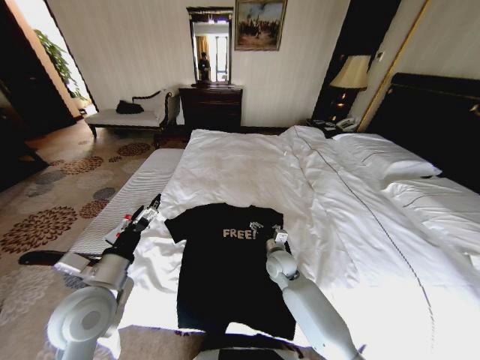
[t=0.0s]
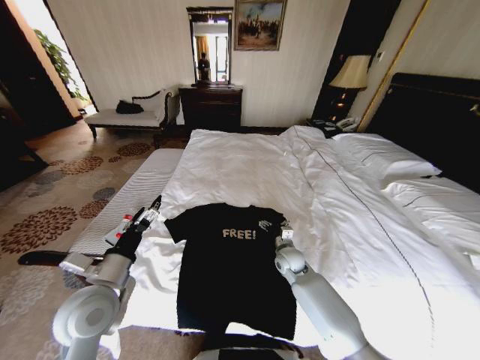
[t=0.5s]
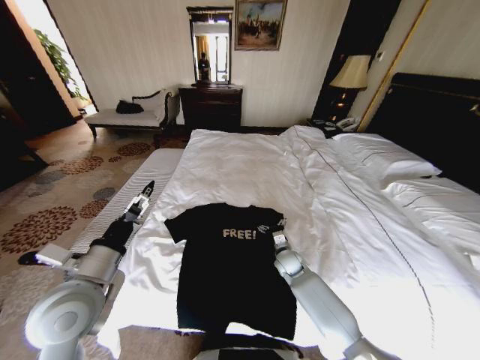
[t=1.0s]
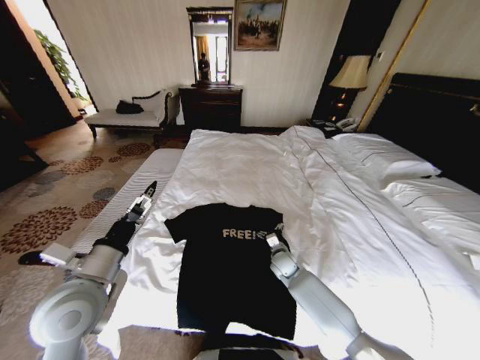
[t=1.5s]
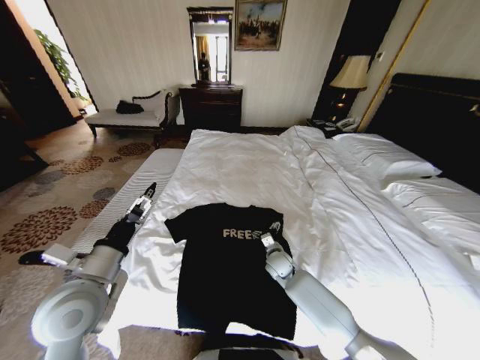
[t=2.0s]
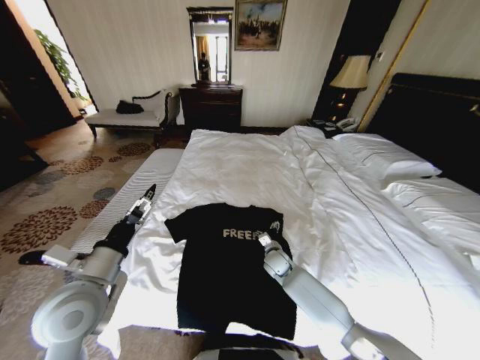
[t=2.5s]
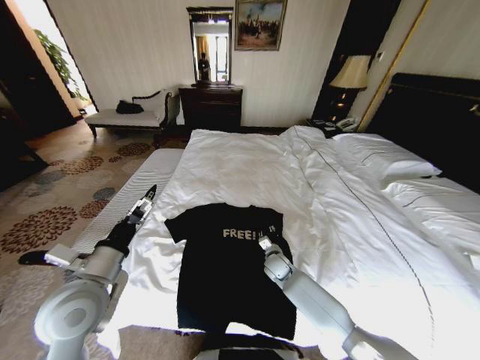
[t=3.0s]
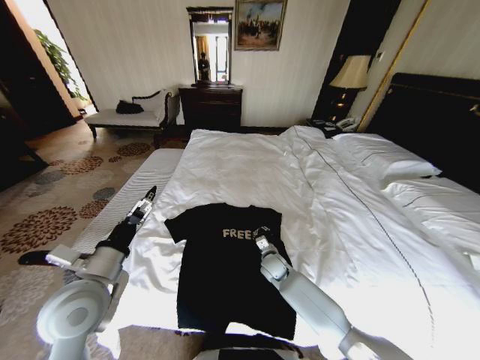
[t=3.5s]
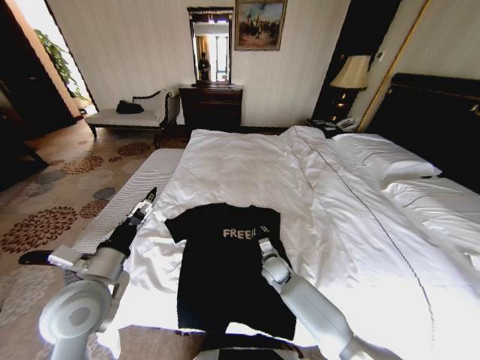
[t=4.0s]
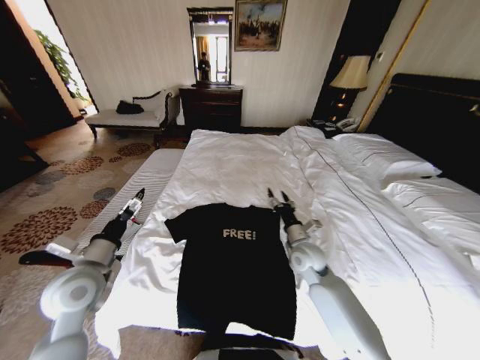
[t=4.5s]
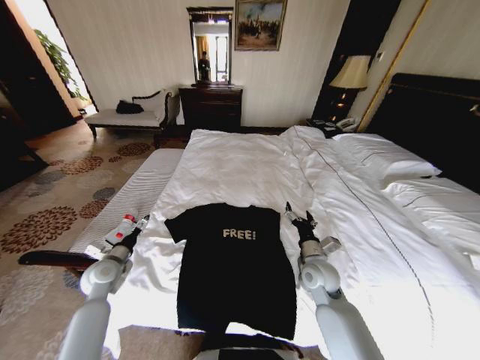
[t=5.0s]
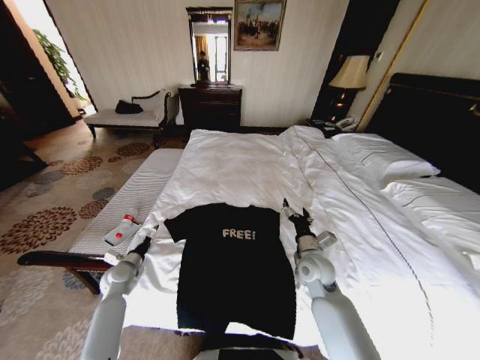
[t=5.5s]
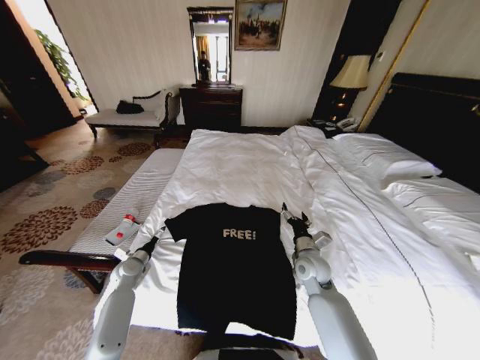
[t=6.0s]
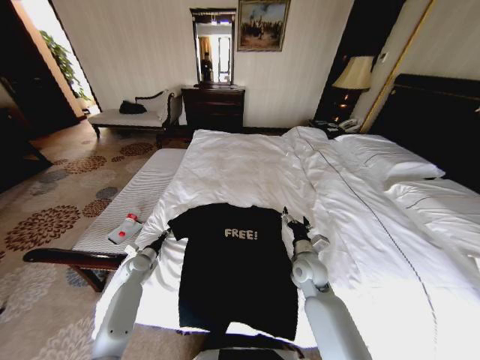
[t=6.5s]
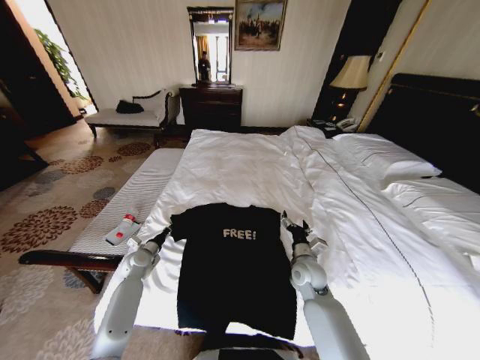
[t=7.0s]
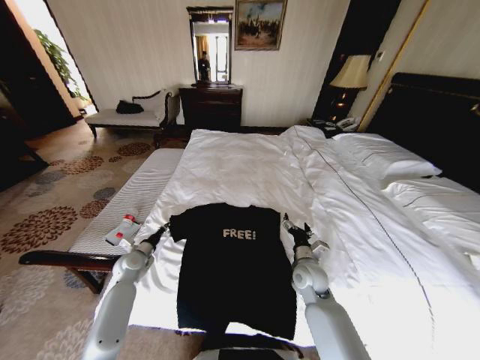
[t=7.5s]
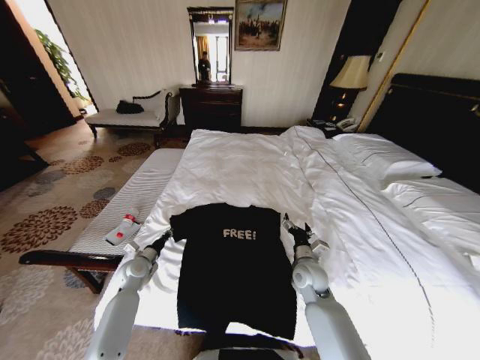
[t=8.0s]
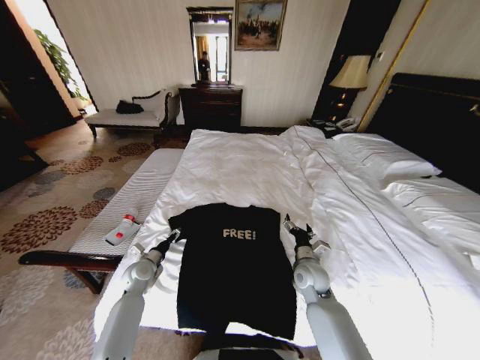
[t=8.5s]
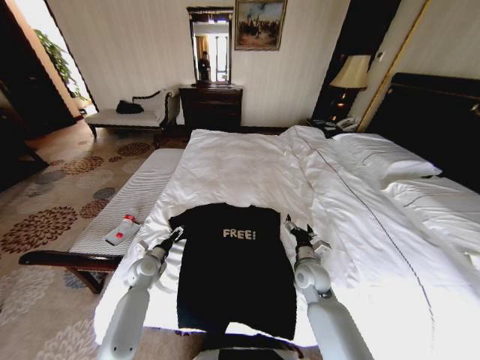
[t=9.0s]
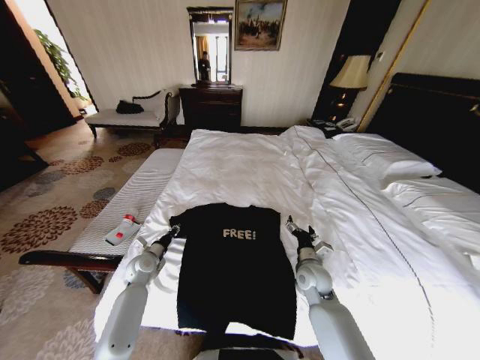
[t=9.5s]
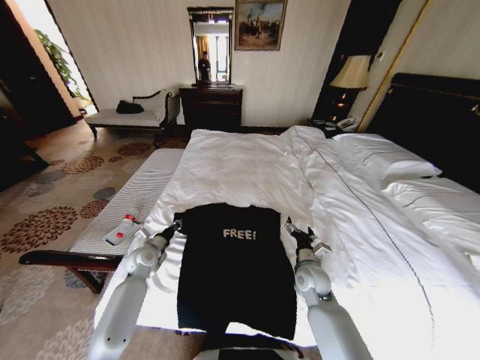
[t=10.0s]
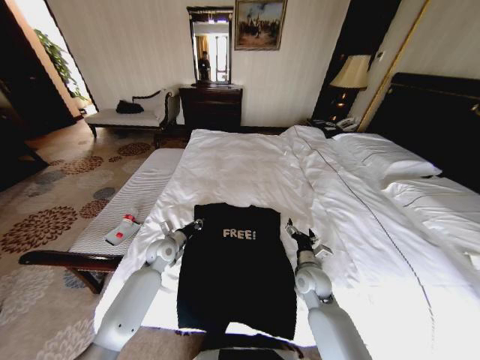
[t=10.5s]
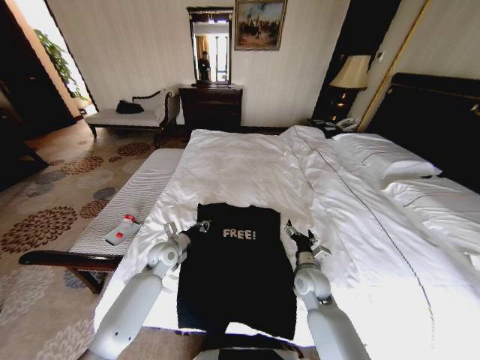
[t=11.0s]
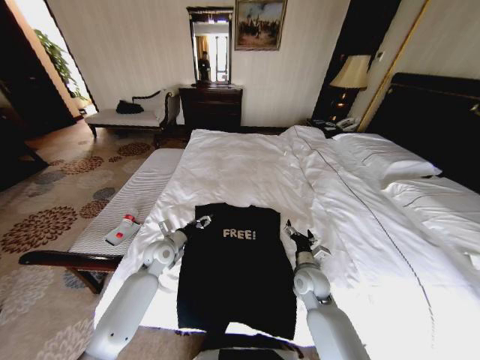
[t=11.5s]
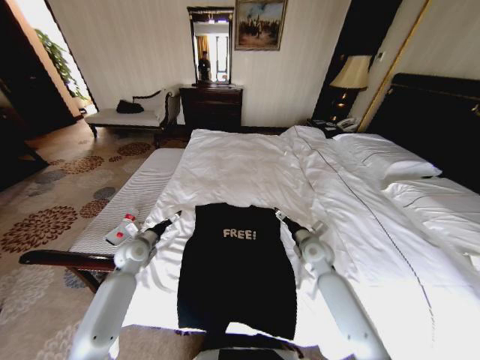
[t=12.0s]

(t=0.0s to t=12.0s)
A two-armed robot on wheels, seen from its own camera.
Task of the whole recording: Fold the clothes on the bed.
t=2.0s - t=4.0s: The right gripper closes its fingers.
t=4.0s - t=6.0s: The right gripper goes some 15 cm upward and to the right, and opens up; the left gripper moves downward and forward, roughly 30 cm.
t=6.0s - t=8.0s: The left gripper closes up.
t=8.0s - t=10.0s: The left gripper shifts by roughly 5 cm, and opens and closes again.
t=10.0s - t=12.0s: The right gripper is displaced forward by approximately 5 cm. The left gripper moves approximately 5 cm to the right and comes back, and opens its fingers.

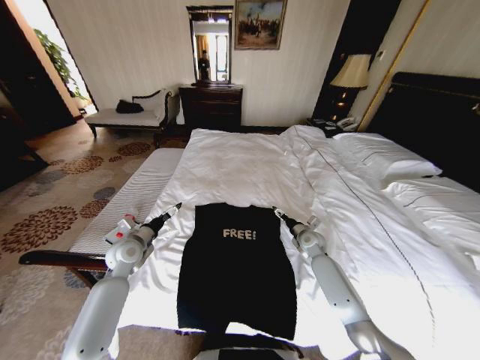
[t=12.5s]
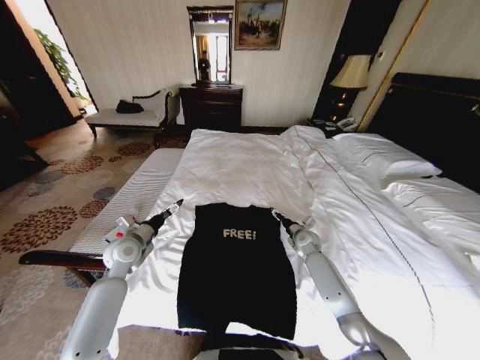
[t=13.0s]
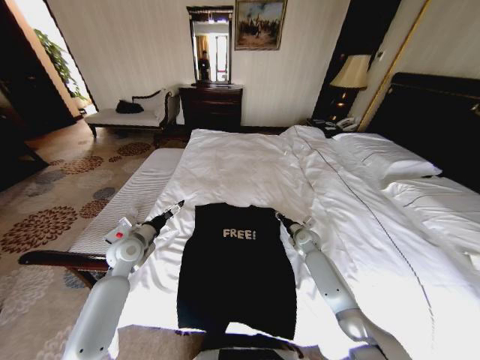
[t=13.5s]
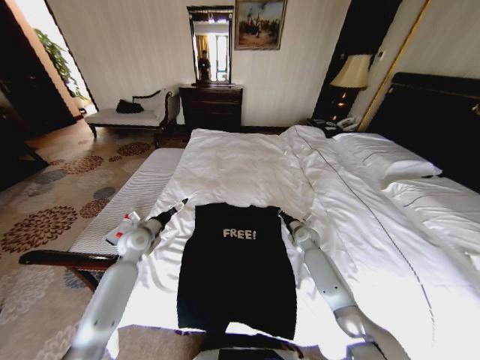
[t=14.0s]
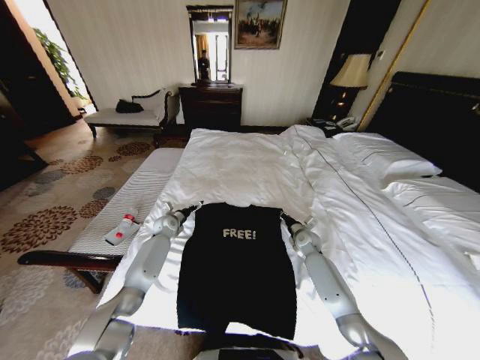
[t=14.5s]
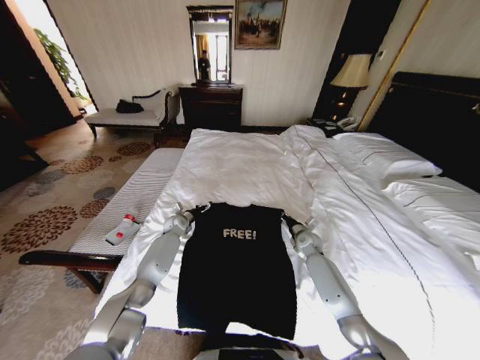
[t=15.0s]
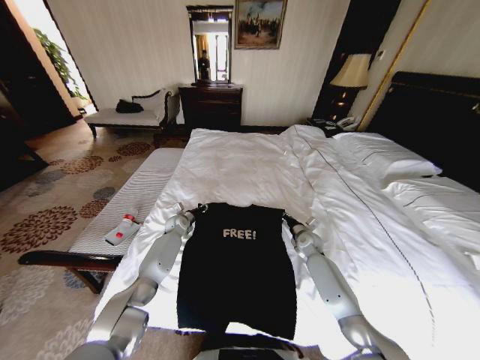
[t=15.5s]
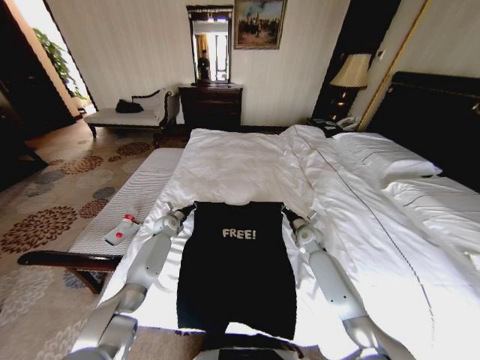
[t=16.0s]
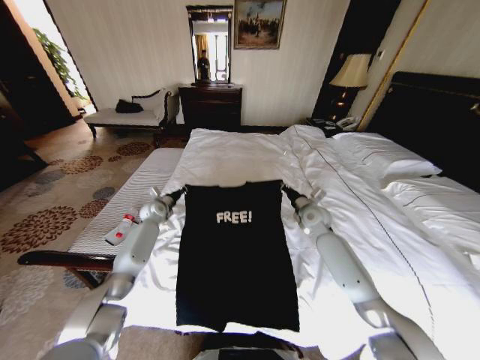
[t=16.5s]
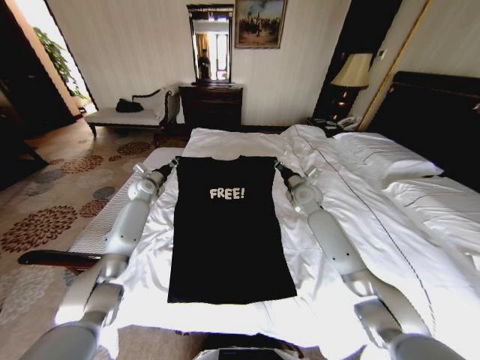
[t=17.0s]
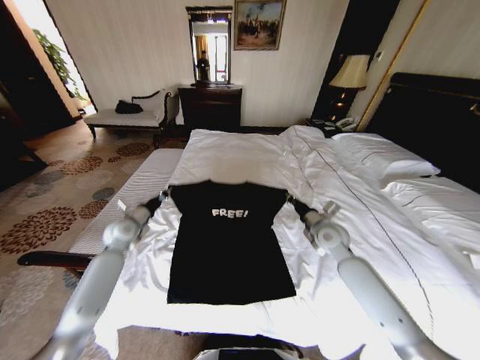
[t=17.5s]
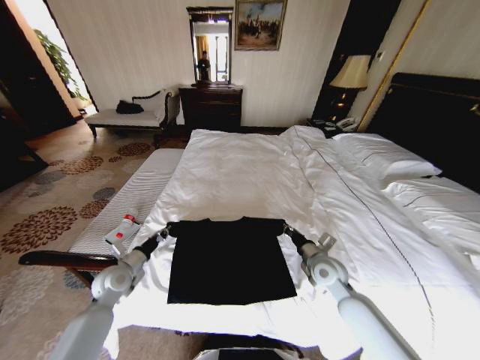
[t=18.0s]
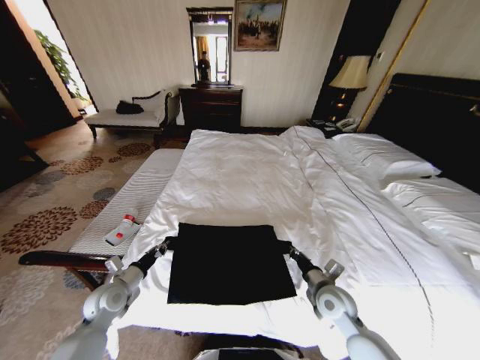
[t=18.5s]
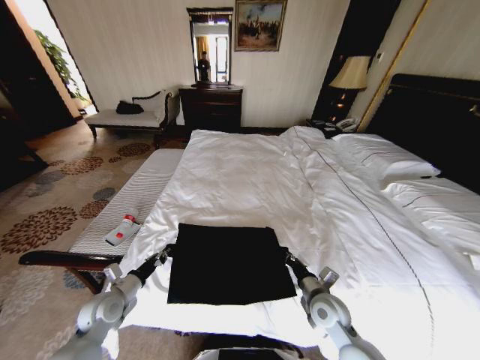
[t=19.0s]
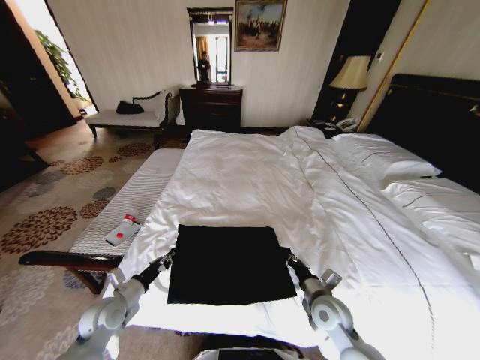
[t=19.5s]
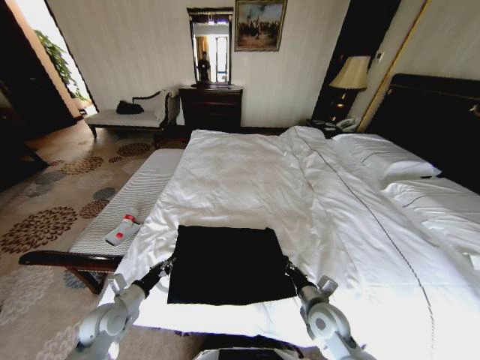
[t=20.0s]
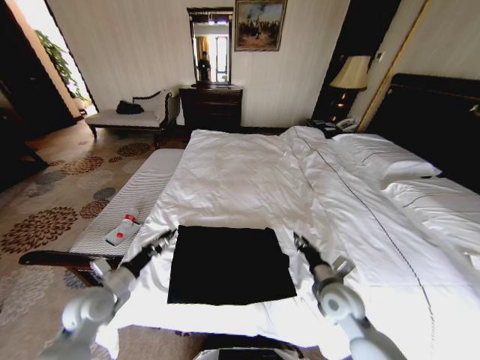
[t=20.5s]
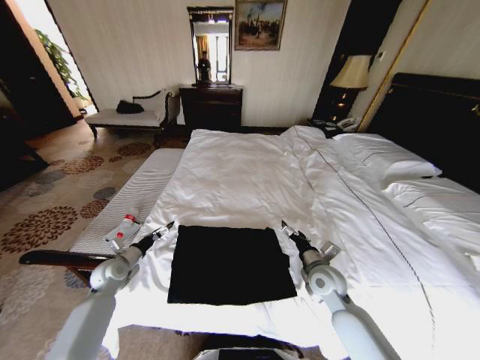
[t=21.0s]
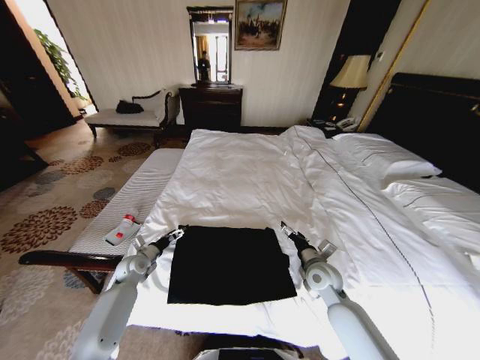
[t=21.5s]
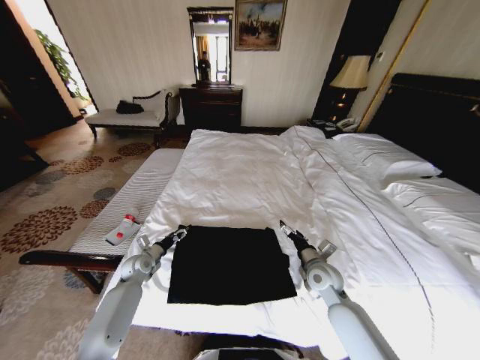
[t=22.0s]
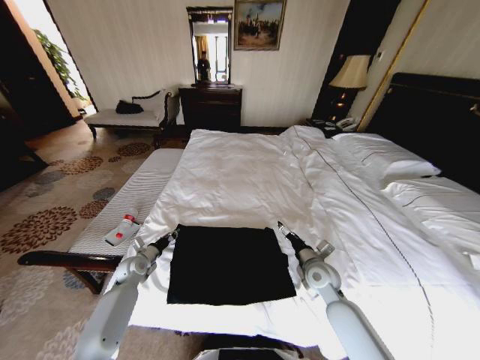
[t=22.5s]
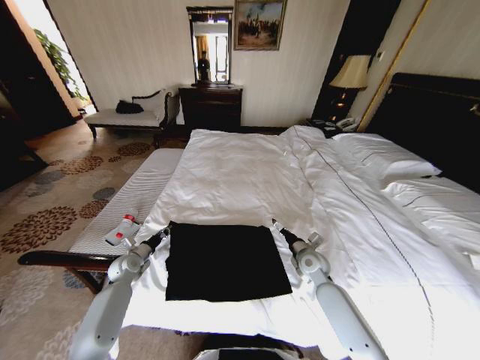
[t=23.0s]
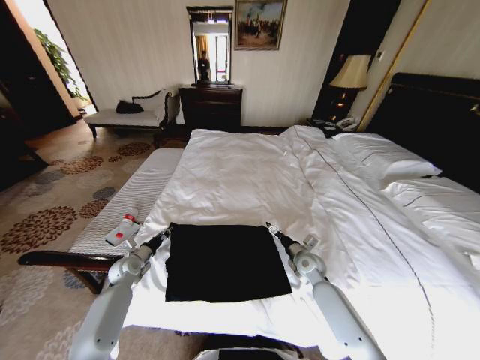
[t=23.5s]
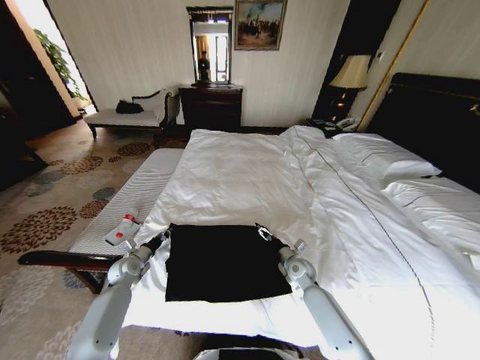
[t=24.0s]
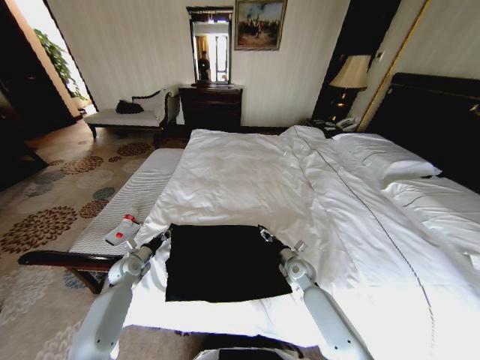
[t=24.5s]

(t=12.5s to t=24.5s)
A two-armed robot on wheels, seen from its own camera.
Task of the whole recording: Fold the clothes on the bed.
t=12.5s - t=14.5s: The right gripper closes up; the left gripper travels forward and downward by approximately 20 cm.
t=14.5s - t=16.5s: The right gripper shifts roughly 10 cm upward. The left gripper ends up some 5 cm from where it was, and closes up.
t=16.5s - t=18.5s: The grippers both shift backward by some 25 cm.
t=18.5s - t=20.5s: The right gripper opens up; the left gripper travels upward by some 5 cm, and opens its fingers.
t=20.5s - t=22.5s: The left gripper goes about 20 cm forward and downward, and closes. The right gripper goes about 5 cm forward, and opens up.
t=22.5s - t=24.5s: The right gripper is displaced downward and forward by about 10 cm, and closes its fingers.

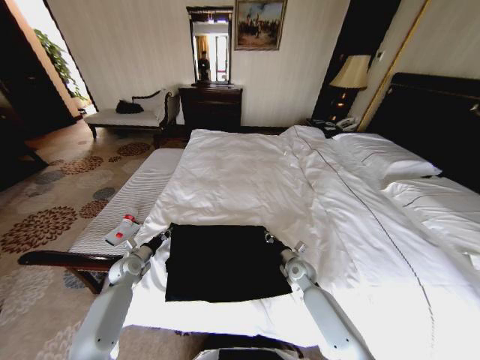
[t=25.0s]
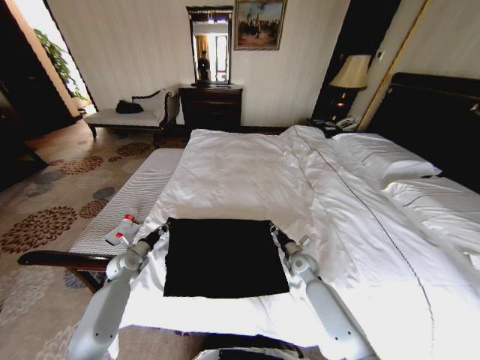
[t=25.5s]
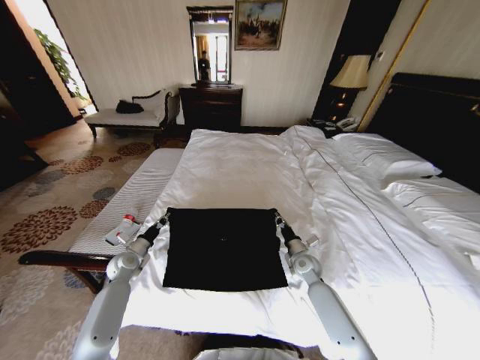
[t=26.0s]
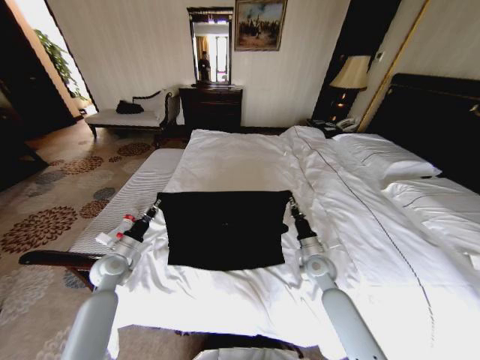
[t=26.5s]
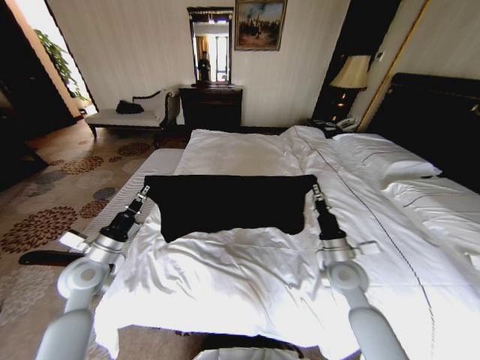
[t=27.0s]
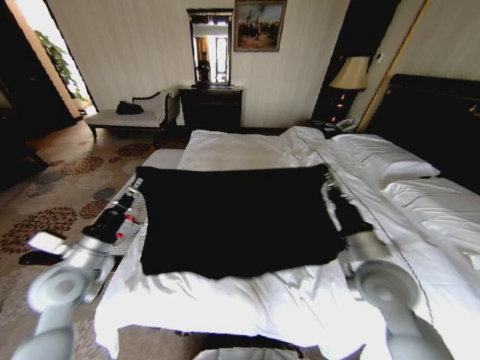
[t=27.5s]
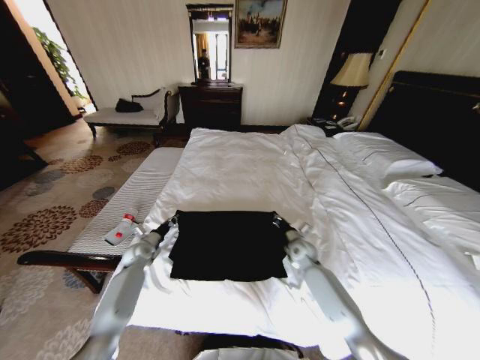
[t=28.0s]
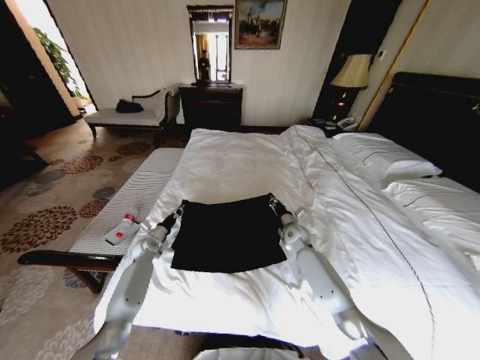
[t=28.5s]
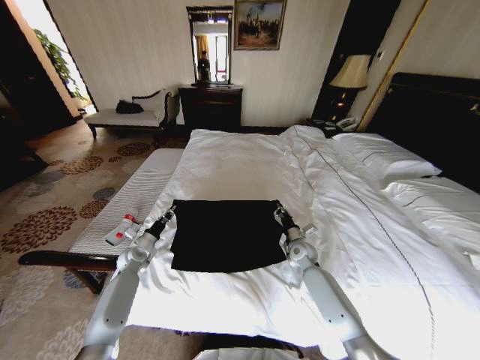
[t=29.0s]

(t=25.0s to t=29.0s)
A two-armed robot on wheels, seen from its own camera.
Task of the whole recording: Fold the clothes on the bed.
t=25.0s - t=27.0s: The grippers both shift upward and backward by about 20 cm.
t=27.0s - t=29.0s: The left gripper travels downward and forward by some 20 cm; the right gripper moves forward and backward over about 25 cm, changing direction 2 times.
